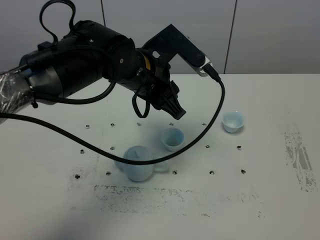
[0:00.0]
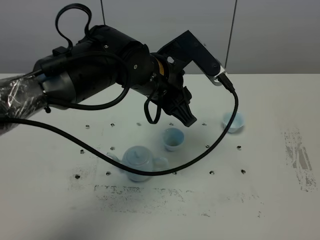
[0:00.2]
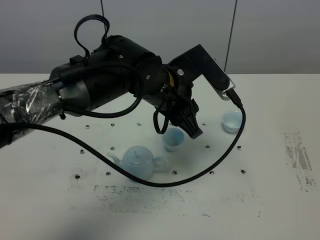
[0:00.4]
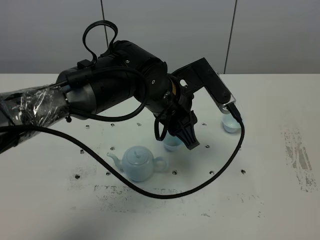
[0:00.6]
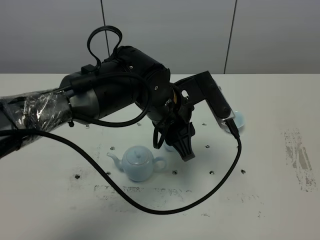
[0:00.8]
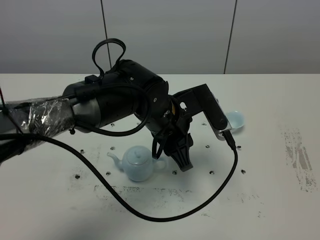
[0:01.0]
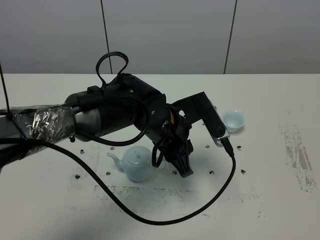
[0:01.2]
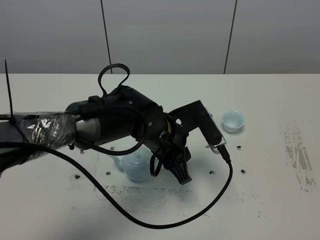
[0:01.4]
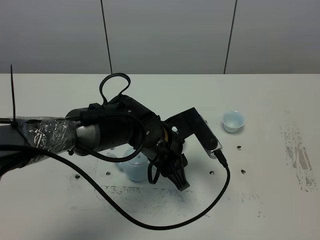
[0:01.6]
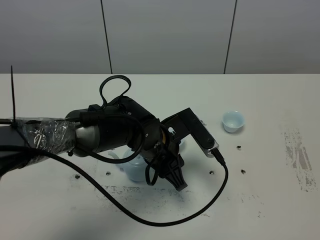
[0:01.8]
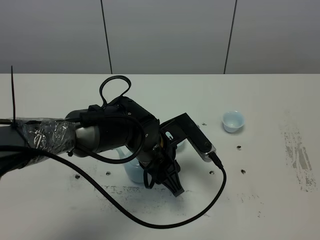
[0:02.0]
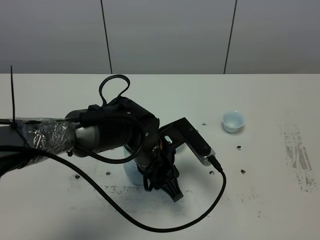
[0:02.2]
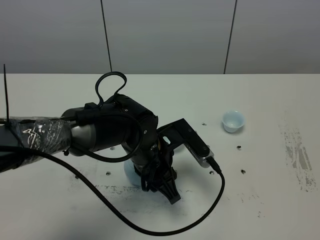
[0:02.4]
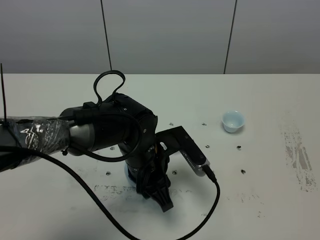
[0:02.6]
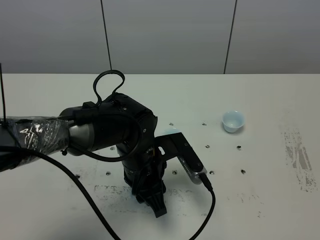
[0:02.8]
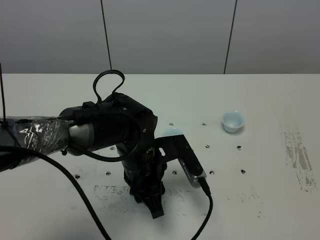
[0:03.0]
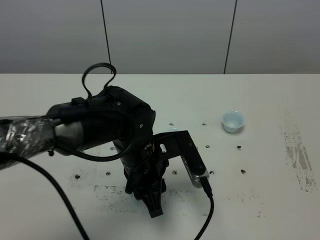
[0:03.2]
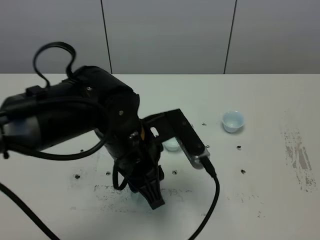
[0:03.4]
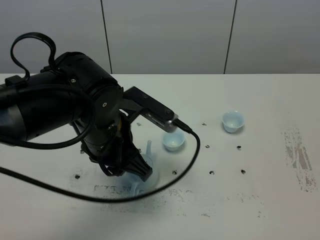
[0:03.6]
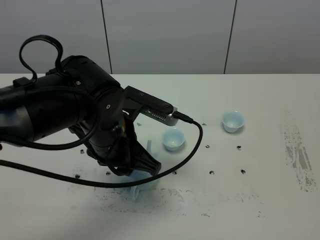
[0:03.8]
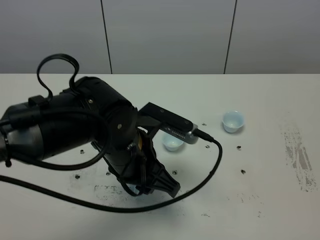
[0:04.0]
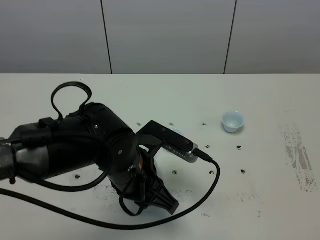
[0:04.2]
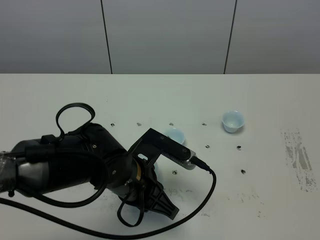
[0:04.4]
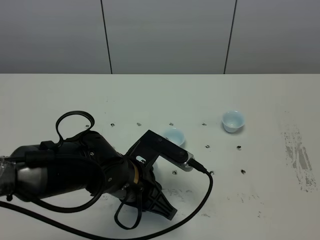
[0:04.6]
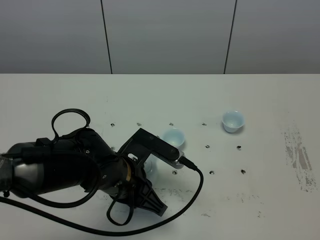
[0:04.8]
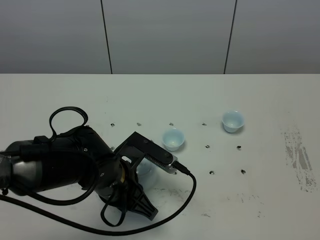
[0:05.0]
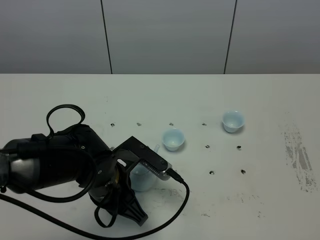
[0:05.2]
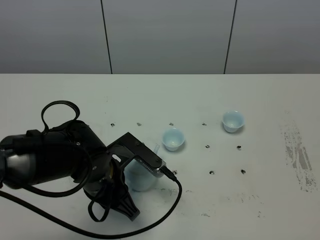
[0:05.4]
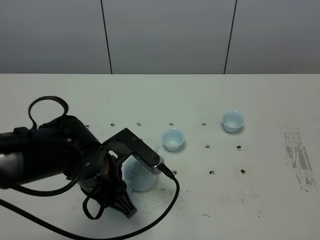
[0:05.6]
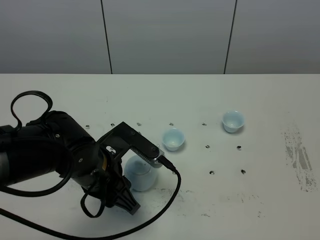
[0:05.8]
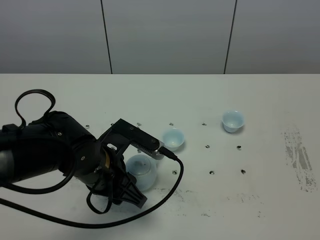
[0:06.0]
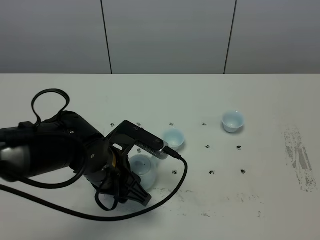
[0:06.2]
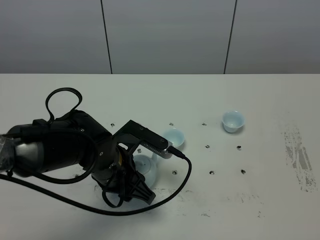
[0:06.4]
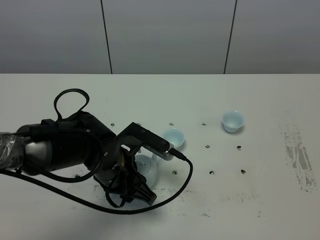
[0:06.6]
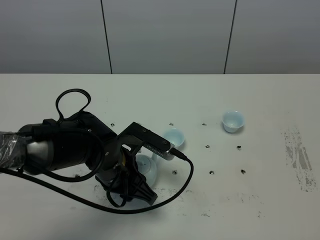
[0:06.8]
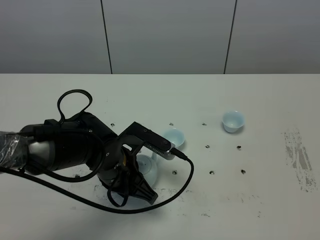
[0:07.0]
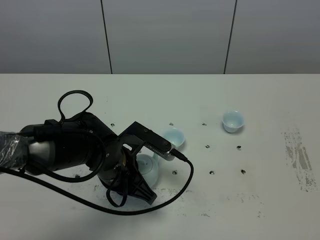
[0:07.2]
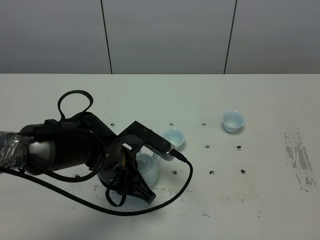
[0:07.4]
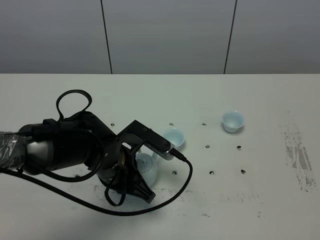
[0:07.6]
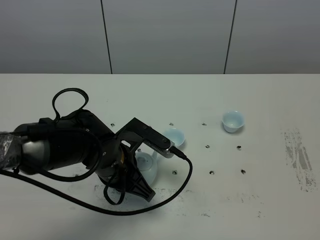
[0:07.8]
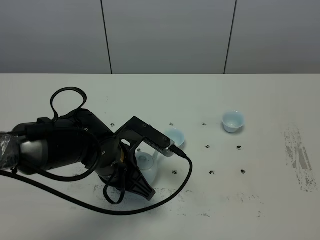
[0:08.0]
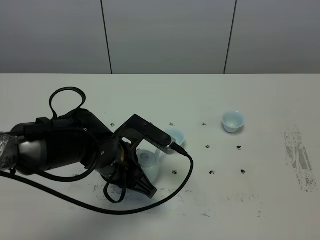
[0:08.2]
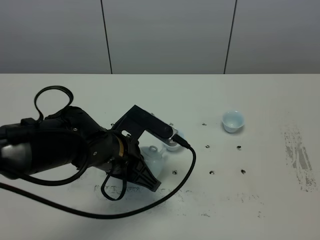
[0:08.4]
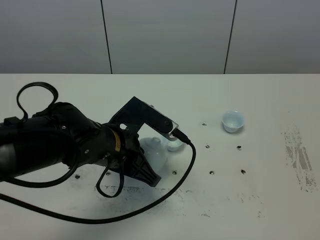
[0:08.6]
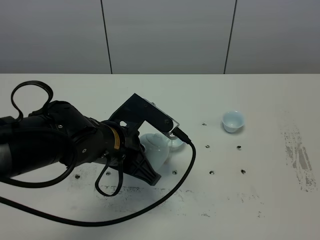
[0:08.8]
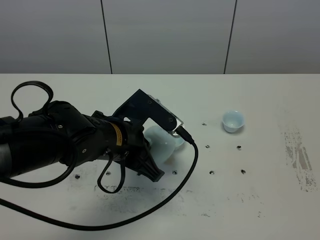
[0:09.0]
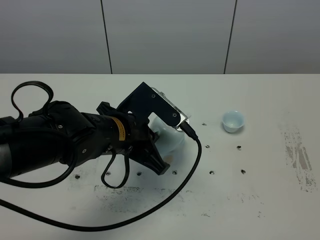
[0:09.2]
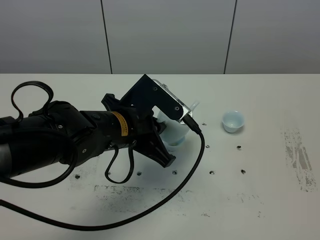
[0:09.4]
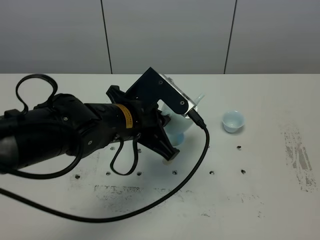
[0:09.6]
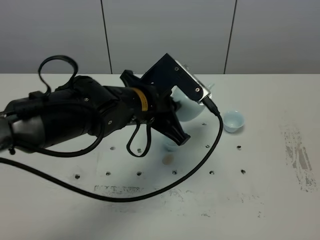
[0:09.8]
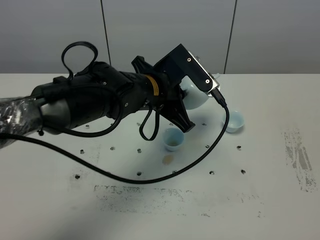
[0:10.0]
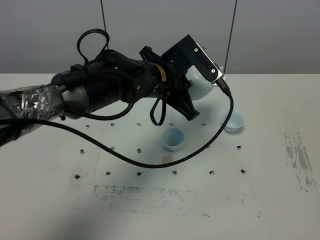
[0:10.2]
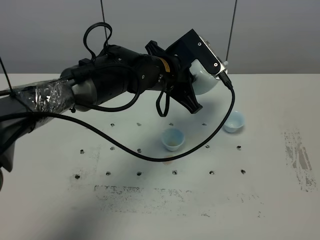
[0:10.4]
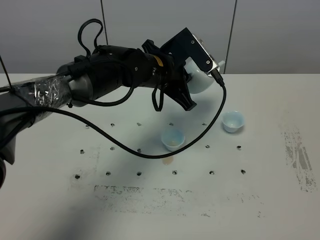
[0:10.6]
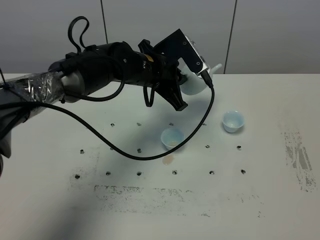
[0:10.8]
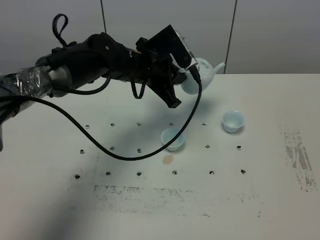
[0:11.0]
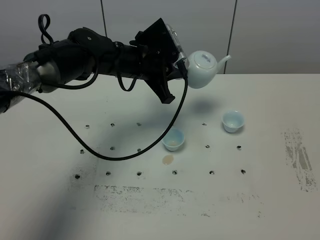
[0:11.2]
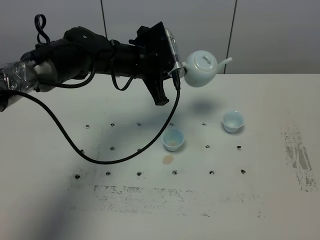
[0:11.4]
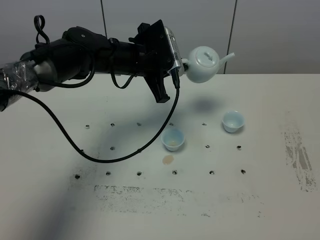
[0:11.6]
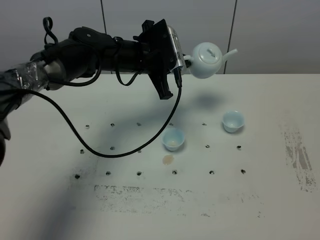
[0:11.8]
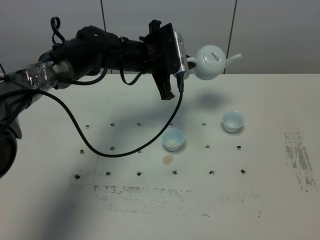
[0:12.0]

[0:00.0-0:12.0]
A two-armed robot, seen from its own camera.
Task of the whole recording: grasp the blue porcelain teapot and pour the tea into the two blue porcelain teacups one by one, put the blue porcelain teapot back in its original place.
Step, 0:00.0 to 0:08.2: Pick up the teapot with the left gripper.
0:00.0 to 0:01.6: The right gripper closes up, while the left gripper shifts approximately 10 cm downward.
0:03.0 to 0:04.4: The left gripper travels upward and back again, approximately 10 cm each way.
0:04.4 to 0:06.0: The grippers move only a little.
0:06.0 to 0:07.6: The left gripper closes up.
0:07.6 to 0:09.0: The left gripper is displaced upward by some 5 cm.
0:09.0 to 0:10.4: The left gripper goes some 15 cm forward and to the right.
0:10.4 to 0:12.0: The left gripper goes approximately 5 cm forward.

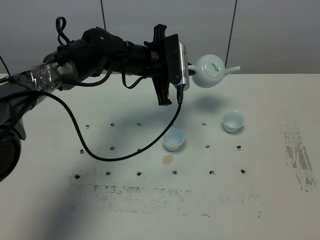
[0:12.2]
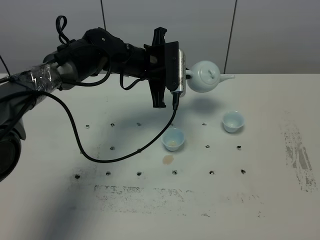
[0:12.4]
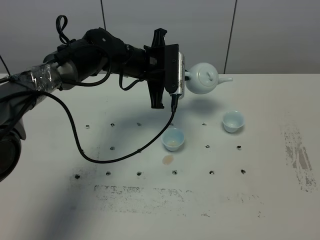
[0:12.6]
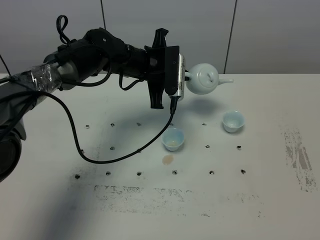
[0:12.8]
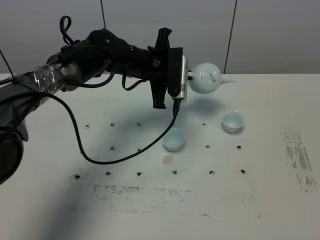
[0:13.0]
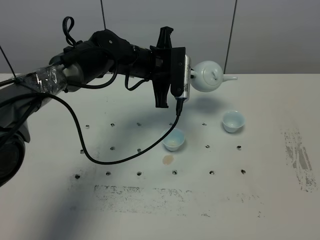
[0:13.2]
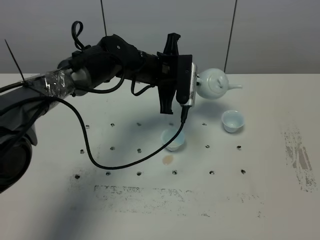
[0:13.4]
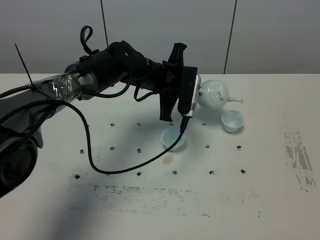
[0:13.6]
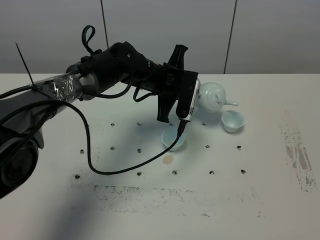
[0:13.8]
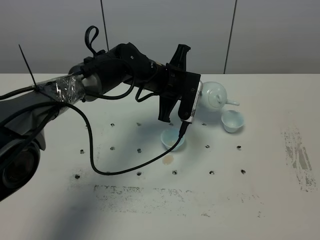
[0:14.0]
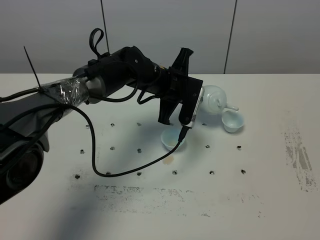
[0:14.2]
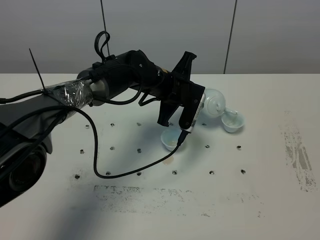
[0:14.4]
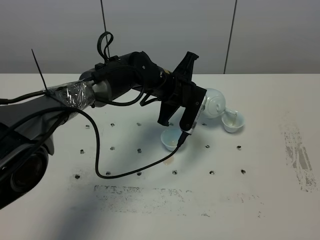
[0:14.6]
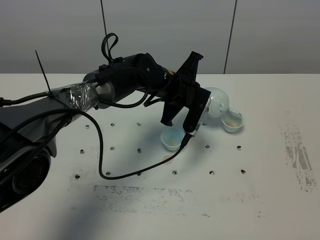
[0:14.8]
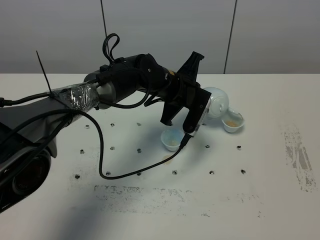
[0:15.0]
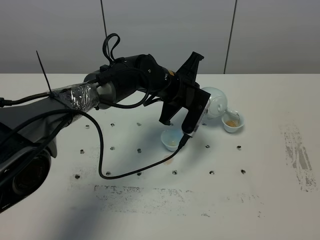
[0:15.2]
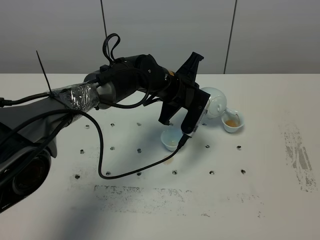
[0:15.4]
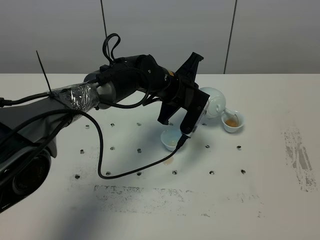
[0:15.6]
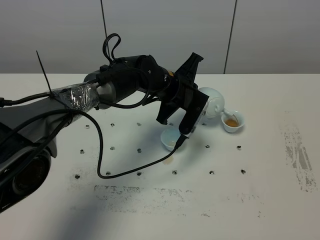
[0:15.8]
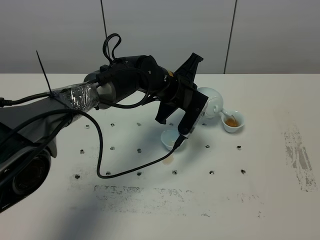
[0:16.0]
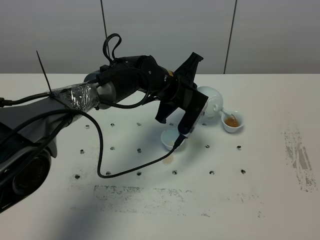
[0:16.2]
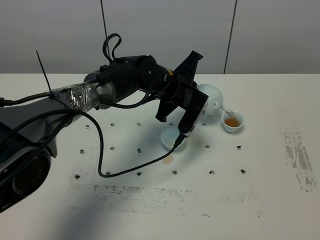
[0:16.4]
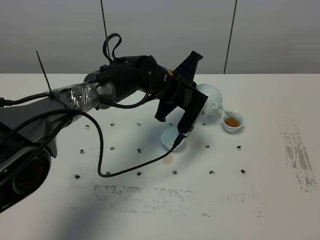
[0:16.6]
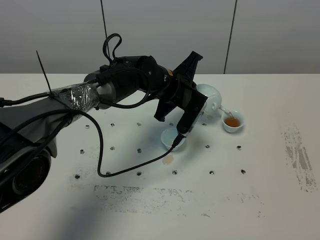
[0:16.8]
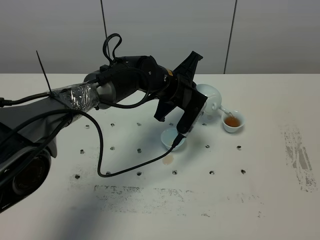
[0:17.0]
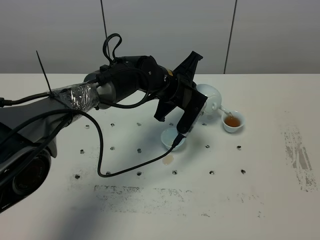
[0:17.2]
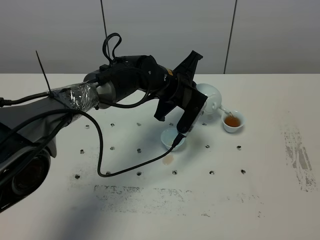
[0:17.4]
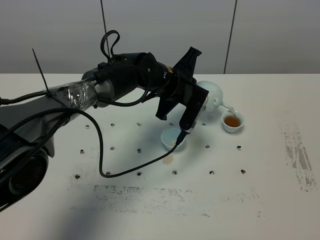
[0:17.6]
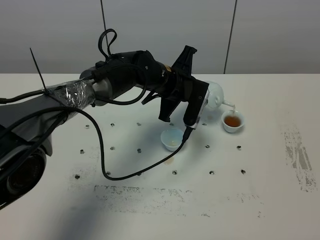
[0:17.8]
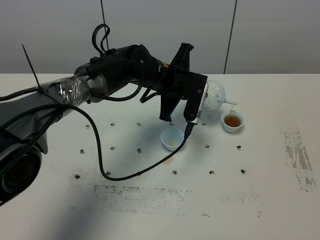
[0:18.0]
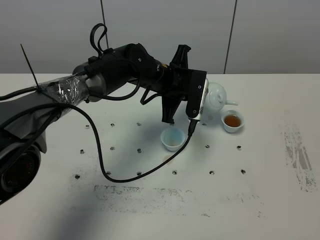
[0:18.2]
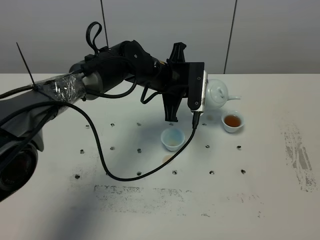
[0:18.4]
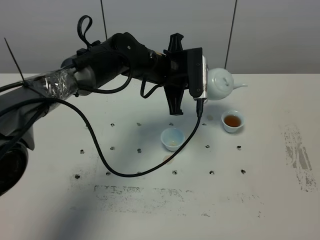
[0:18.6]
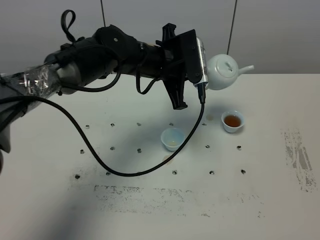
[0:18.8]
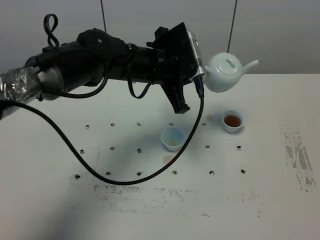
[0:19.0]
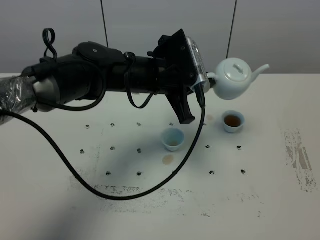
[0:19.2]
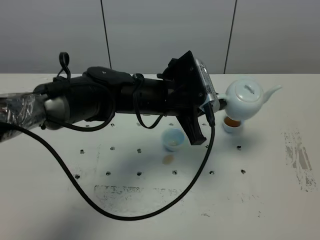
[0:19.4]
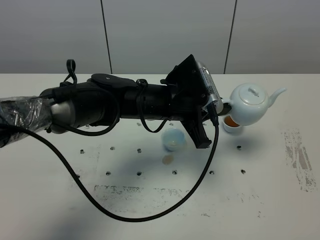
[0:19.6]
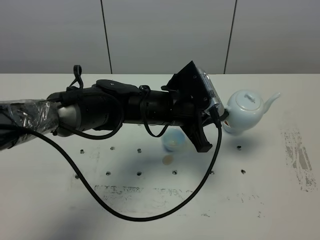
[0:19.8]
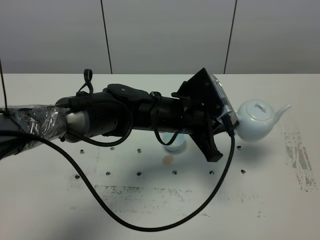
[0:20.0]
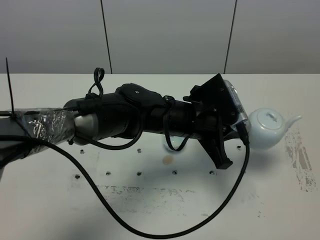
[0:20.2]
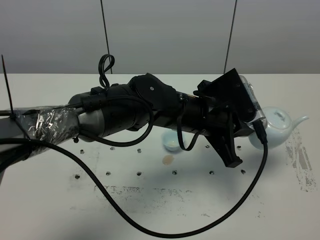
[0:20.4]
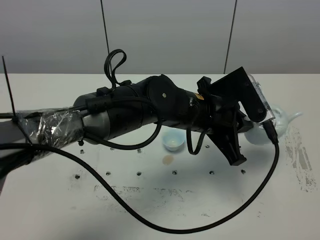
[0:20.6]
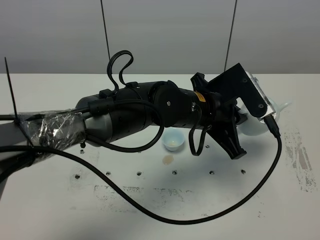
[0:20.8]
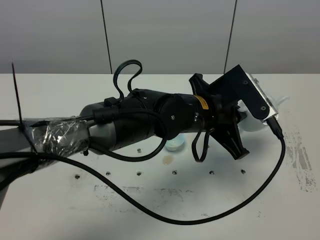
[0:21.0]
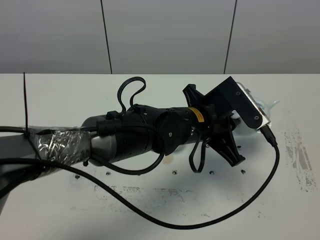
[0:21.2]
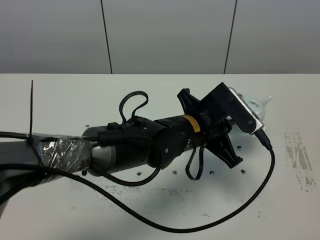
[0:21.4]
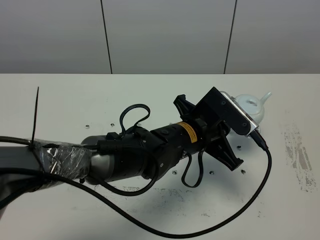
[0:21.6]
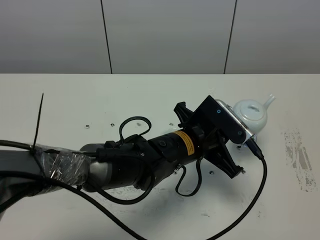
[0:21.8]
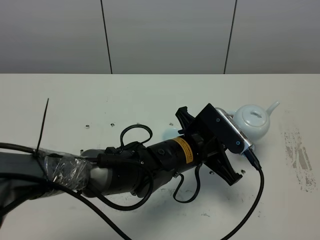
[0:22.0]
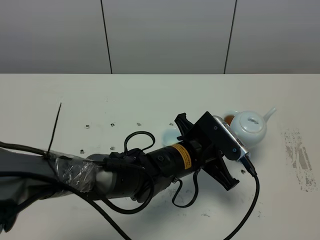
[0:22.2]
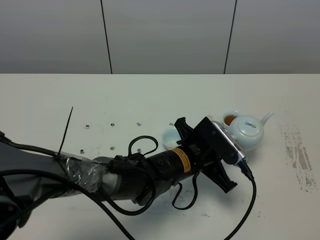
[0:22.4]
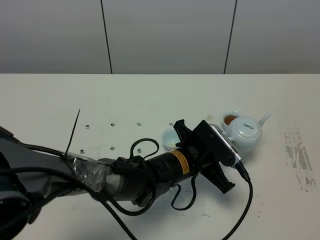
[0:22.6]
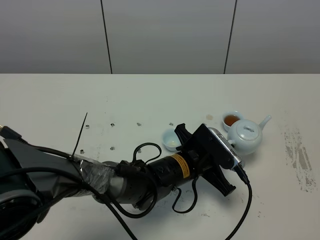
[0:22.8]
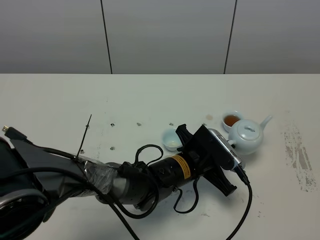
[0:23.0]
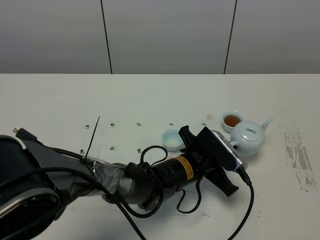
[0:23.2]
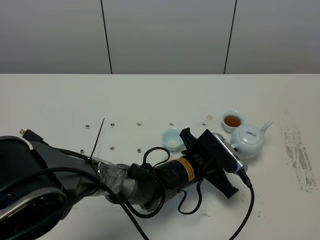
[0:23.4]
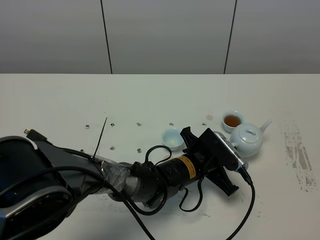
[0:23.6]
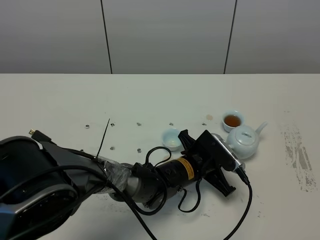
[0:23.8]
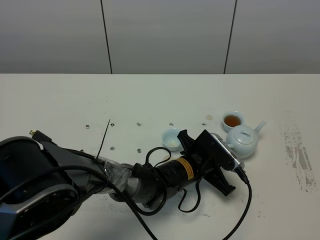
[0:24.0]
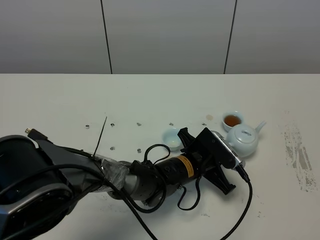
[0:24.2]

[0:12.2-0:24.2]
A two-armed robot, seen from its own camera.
Task of the whole recording: grasp the blue porcelain teapot and pour the tea into the two blue porcelain teacups one by one, put the blue porcelain teapot back in its original place.
0:13.8 to 0:15.2: The grippers make only small movements.
0:15.2 to 0:16.6: The grippers make only small movements.
0:18.2 to 0:19.8: The left gripper shifts some 10 cm backward.
0:19.8 to 0:21.2: The left gripper moves to the right, roughly 5 cm.
0:21.2 to 0:22.6: The left gripper heads downward, covering some 10 cm.
0:22.6 to 0:24.2: There are only small adjustments of the grippers.
